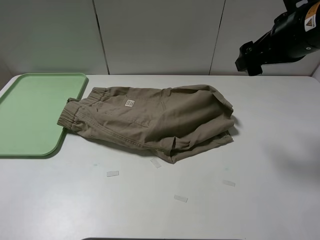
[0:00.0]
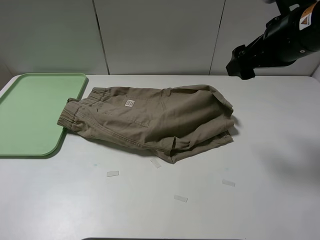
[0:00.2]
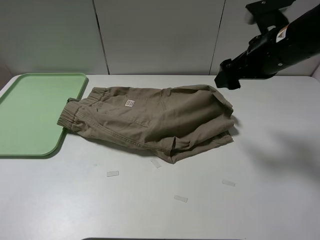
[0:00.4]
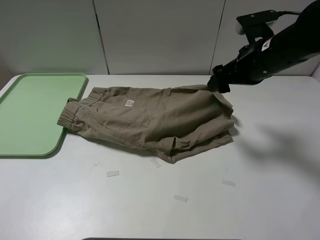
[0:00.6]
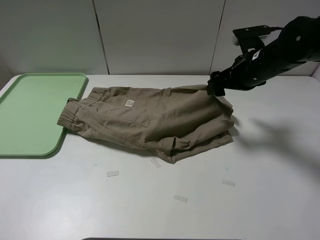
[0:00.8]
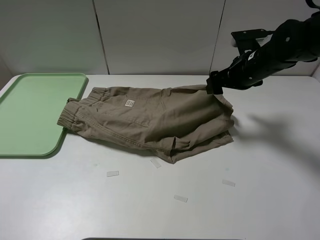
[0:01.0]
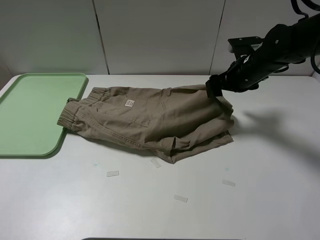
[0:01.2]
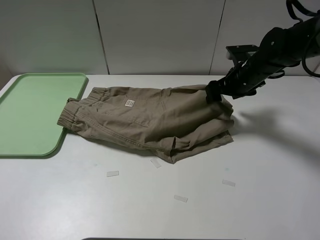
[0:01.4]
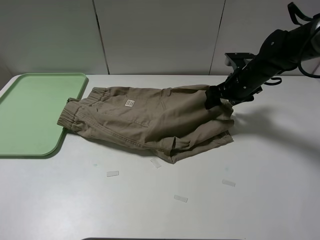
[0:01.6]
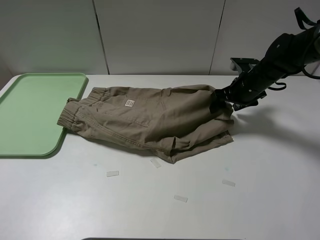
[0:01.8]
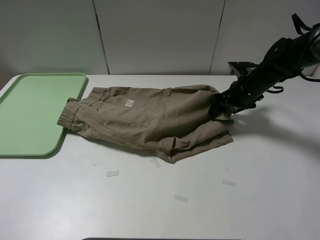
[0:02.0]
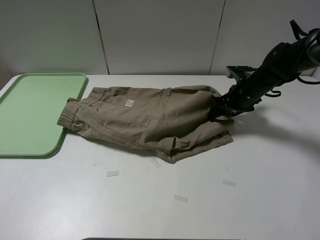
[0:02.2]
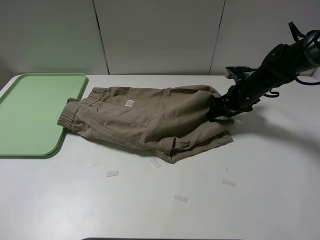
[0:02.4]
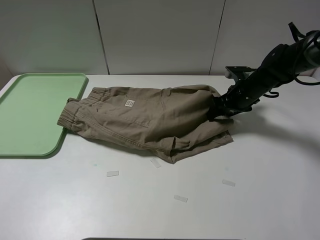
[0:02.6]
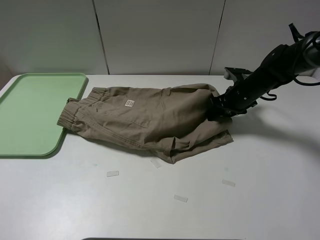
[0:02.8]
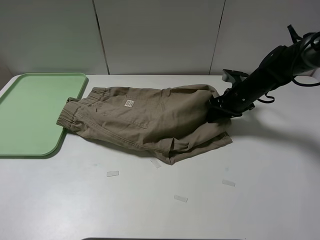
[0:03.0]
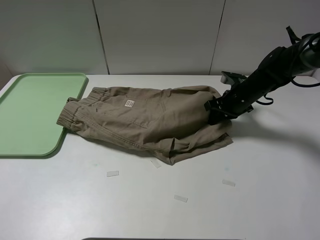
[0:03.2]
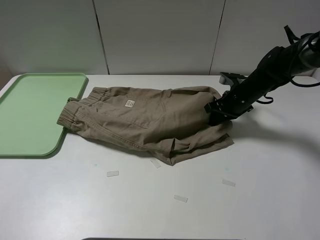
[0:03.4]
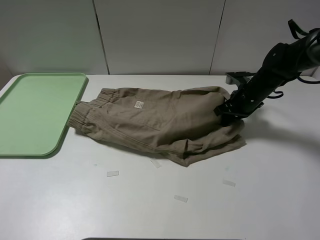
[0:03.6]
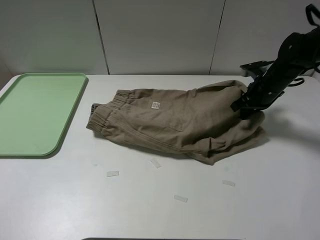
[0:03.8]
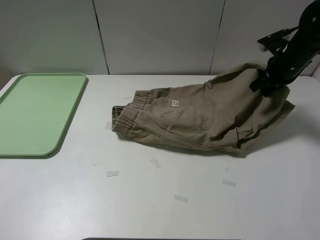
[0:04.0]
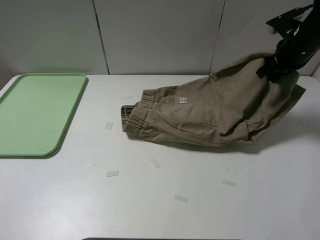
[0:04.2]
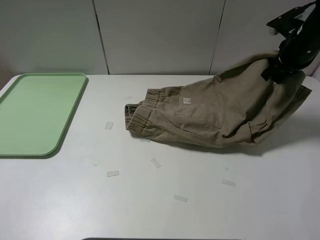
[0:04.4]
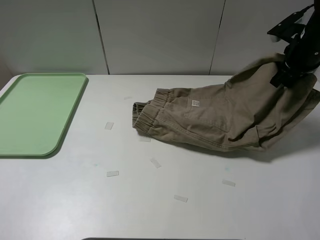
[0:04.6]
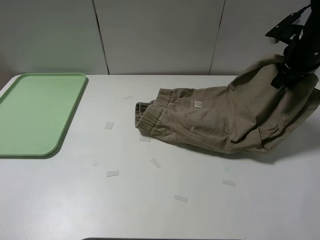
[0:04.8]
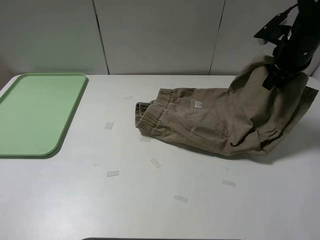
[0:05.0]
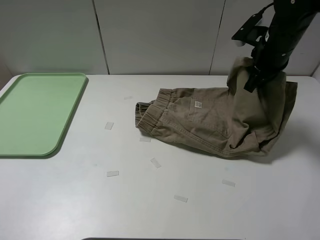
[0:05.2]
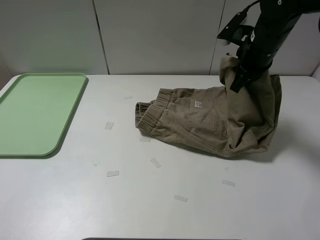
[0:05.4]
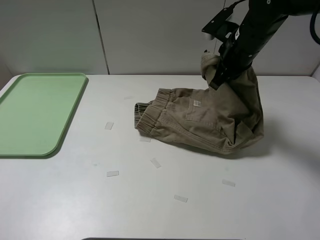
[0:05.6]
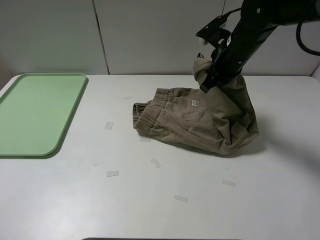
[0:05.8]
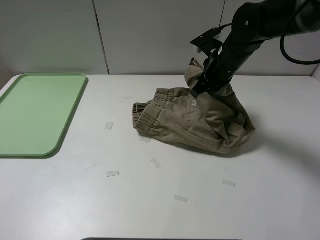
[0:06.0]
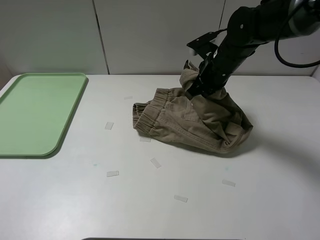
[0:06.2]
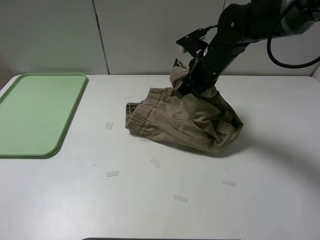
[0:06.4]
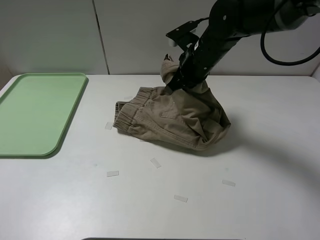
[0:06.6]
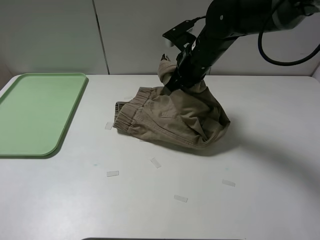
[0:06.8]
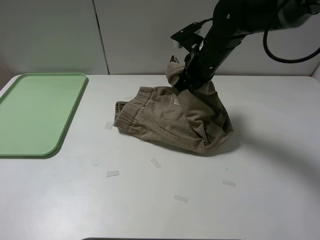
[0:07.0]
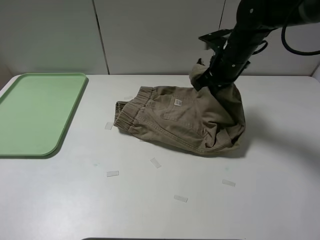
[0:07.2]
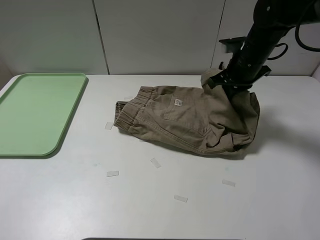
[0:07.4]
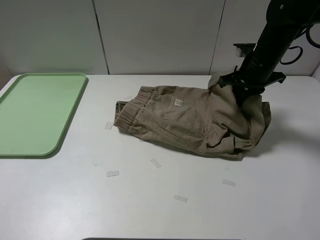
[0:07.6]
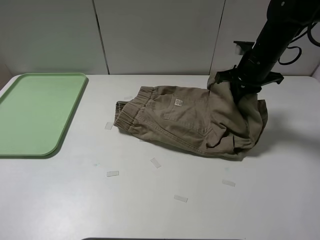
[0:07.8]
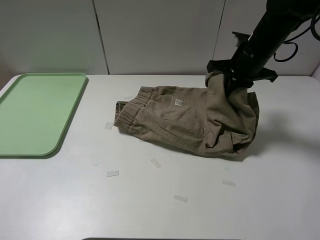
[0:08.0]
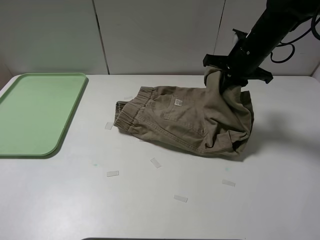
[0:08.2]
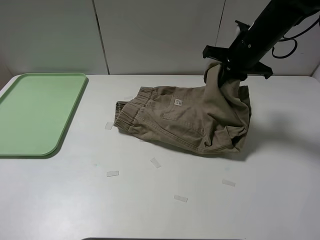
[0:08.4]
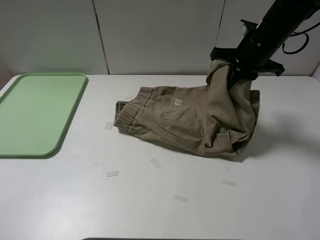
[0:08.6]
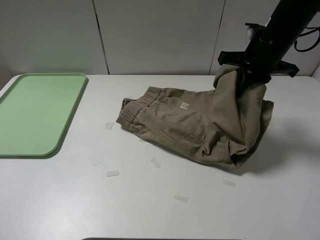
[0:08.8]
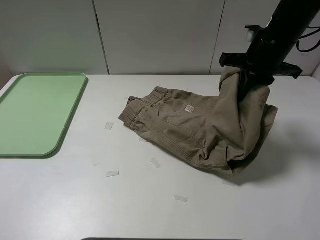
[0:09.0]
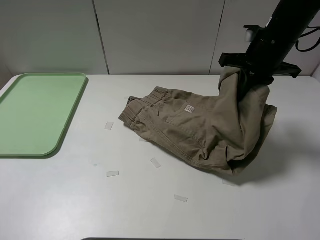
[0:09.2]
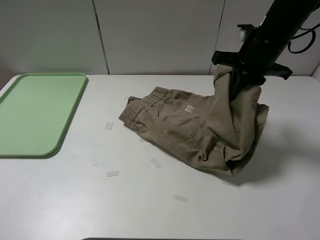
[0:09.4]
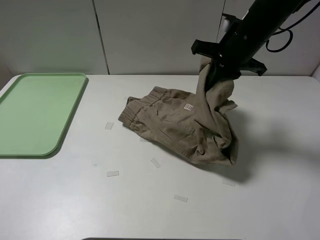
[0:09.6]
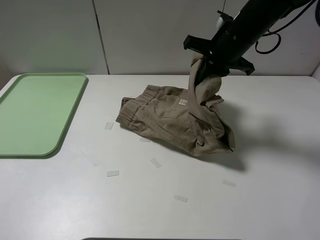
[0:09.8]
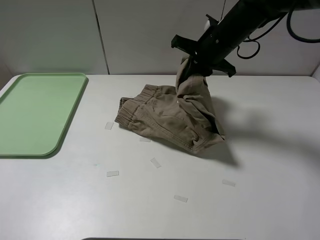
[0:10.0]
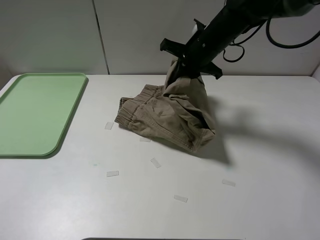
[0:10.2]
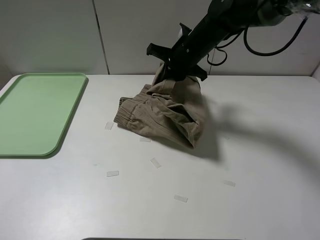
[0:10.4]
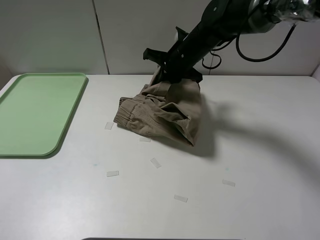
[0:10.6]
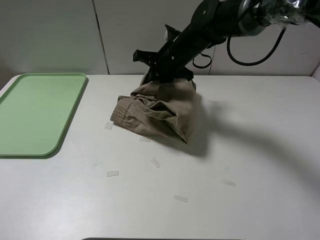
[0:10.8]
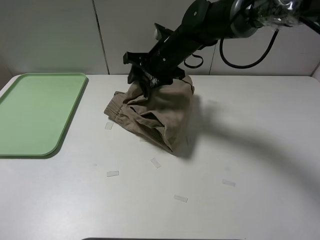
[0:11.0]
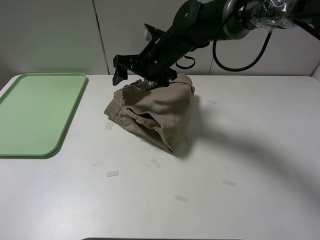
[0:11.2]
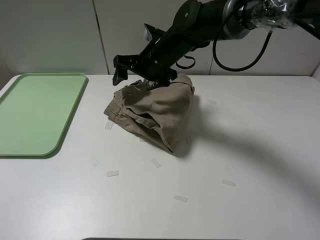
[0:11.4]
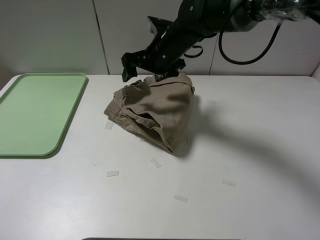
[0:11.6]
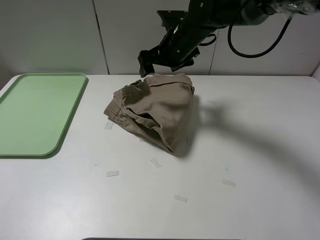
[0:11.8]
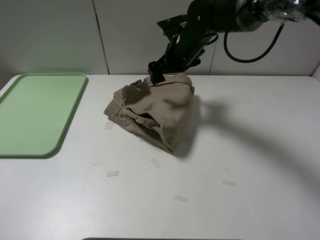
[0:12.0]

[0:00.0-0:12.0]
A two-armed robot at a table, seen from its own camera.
Task of the whole recording: fold the khaki jeans in half with two grippers, then fold them in half again, and use the left claw to place the folded fold khaki jeans on the tray.
Step, 0:00.0 to 0:03.2: Grasp the khaki trousers with the right gripper.
Step, 0:03.4 to 0:11.0: Fold the khaki trousers from right to left with the right gripper.
0:00.0 to 0:01.6: The right gripper is displaced downward and forward by roughly 20 cm.
0:01.6 to 0:03.0: The right gripper closes.
0:03.0 to 0:04.4: The right gripper moves upward and to the right, approximately 15 cm, and closes.
0:04.4 to 0:06.0: The right gripper moves to the left, approximately 15 cm.
0:06.0 to 0:07.6: The right gripper moves to the right, about 10 cm.
0:07.6 to 0:09.0: The right gripper is displaced upward by about 5 cm.
0:09.0 to 0:10.4: The right gripper shifts approximately 15 cm to the left, forward and downward.
0:10.4 to 0:12.0: The right gripper opens.

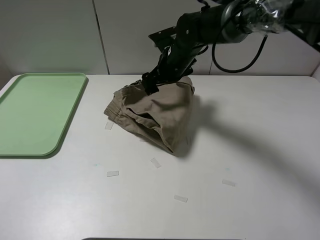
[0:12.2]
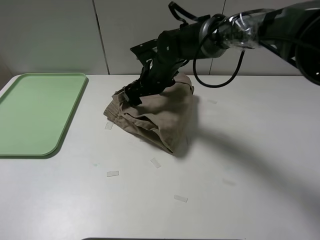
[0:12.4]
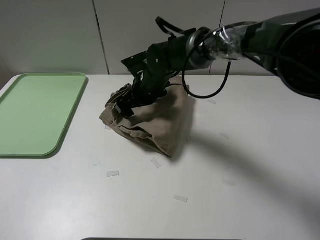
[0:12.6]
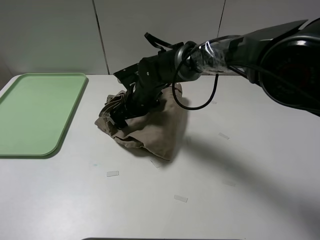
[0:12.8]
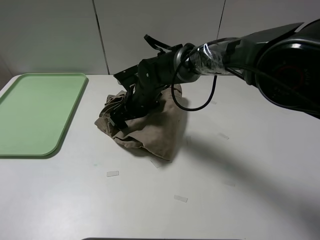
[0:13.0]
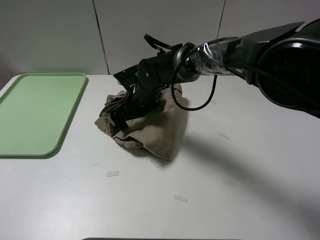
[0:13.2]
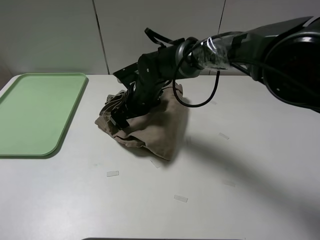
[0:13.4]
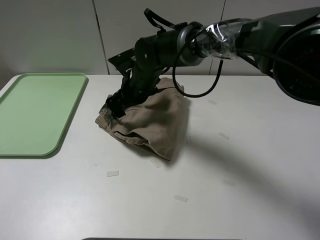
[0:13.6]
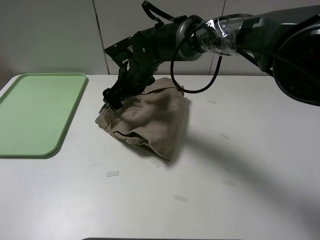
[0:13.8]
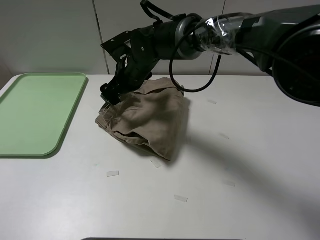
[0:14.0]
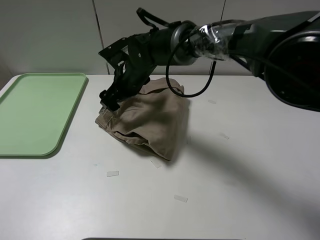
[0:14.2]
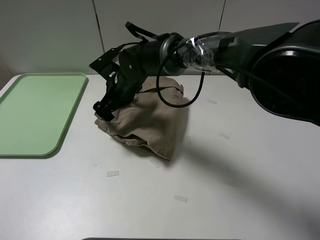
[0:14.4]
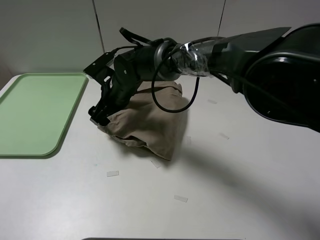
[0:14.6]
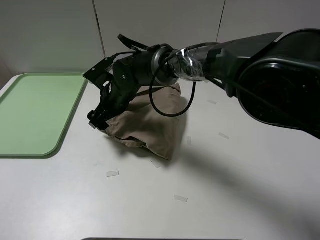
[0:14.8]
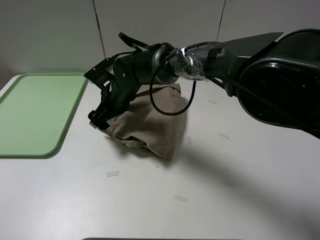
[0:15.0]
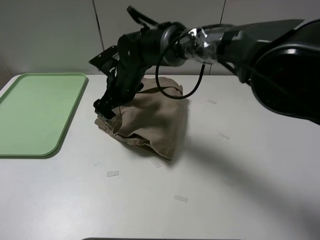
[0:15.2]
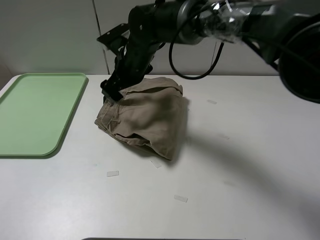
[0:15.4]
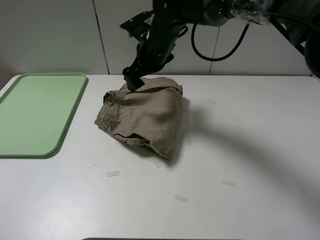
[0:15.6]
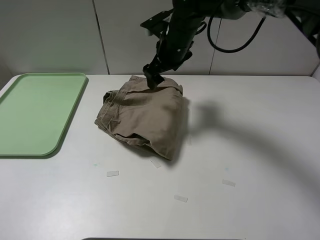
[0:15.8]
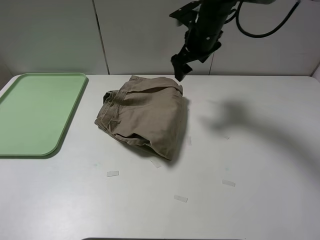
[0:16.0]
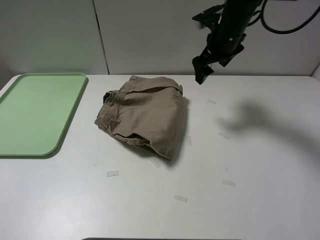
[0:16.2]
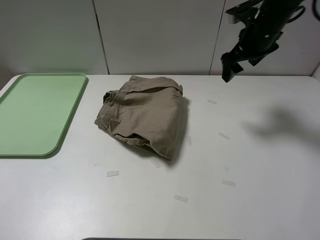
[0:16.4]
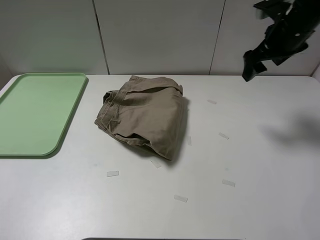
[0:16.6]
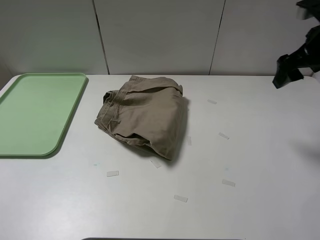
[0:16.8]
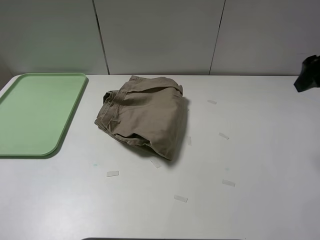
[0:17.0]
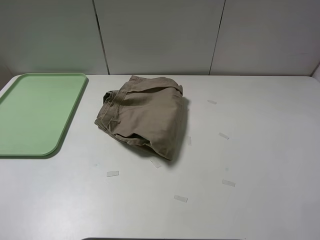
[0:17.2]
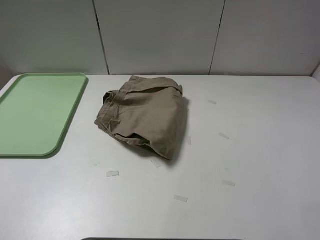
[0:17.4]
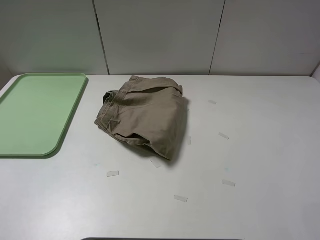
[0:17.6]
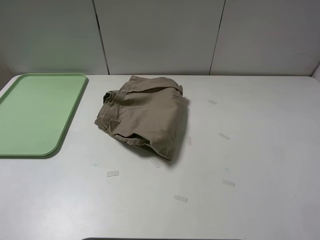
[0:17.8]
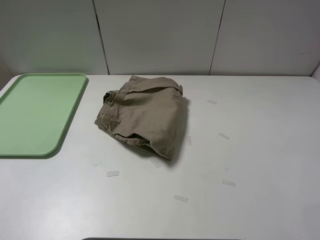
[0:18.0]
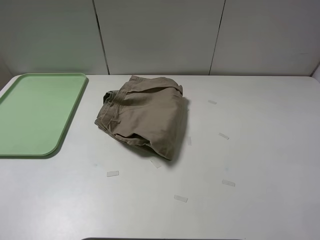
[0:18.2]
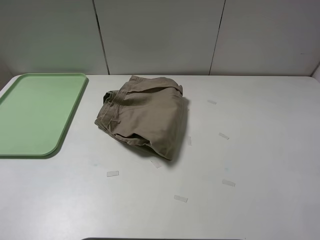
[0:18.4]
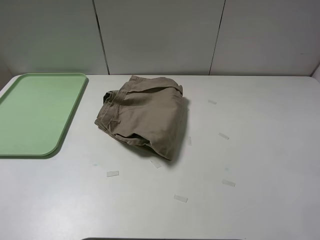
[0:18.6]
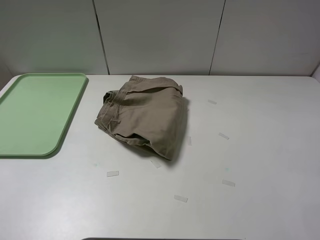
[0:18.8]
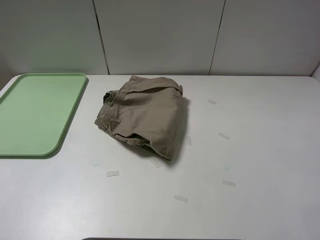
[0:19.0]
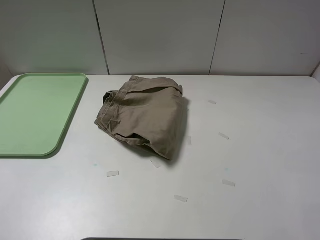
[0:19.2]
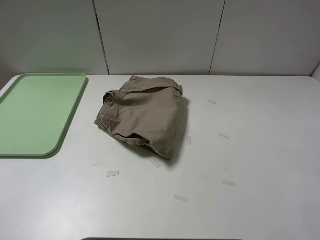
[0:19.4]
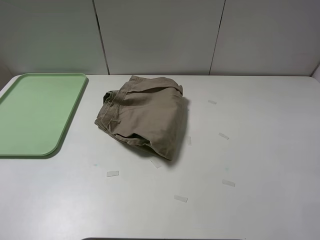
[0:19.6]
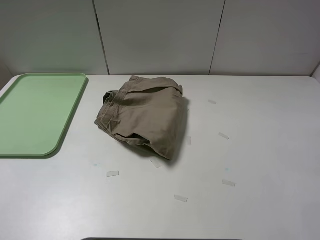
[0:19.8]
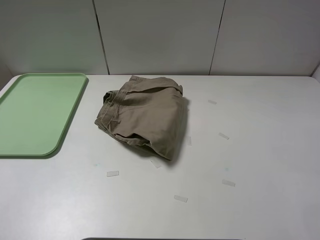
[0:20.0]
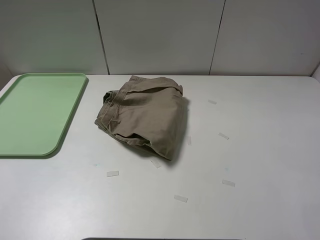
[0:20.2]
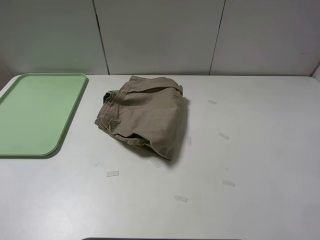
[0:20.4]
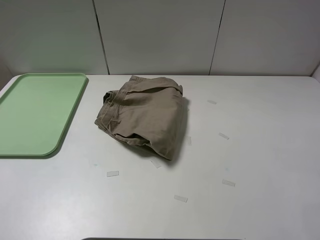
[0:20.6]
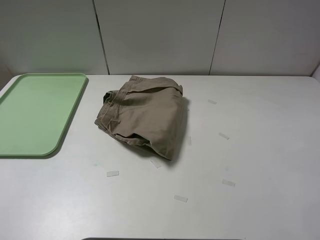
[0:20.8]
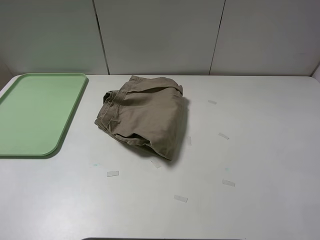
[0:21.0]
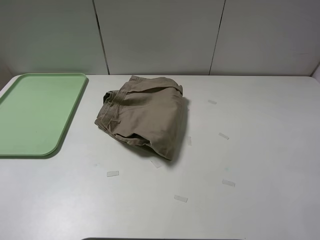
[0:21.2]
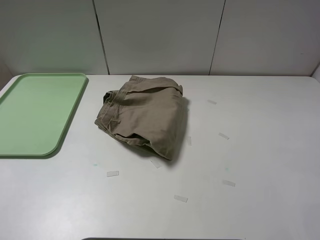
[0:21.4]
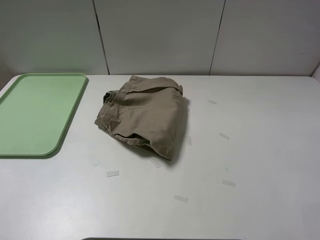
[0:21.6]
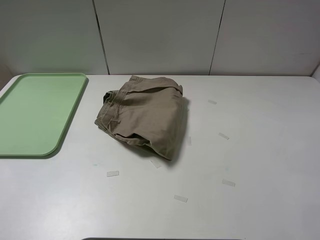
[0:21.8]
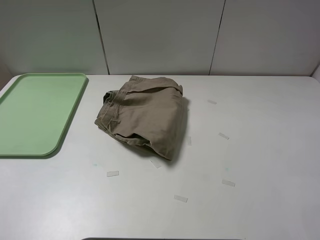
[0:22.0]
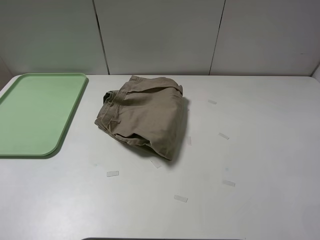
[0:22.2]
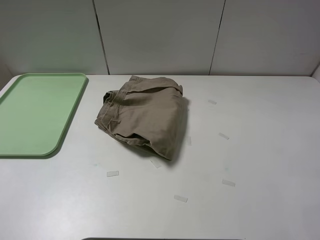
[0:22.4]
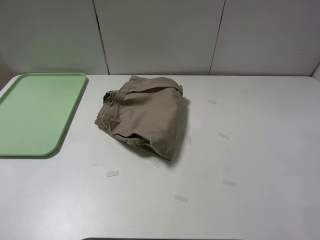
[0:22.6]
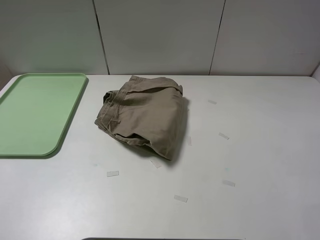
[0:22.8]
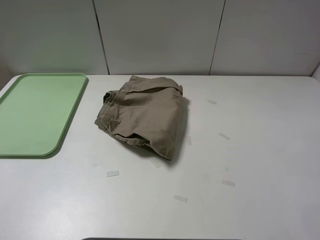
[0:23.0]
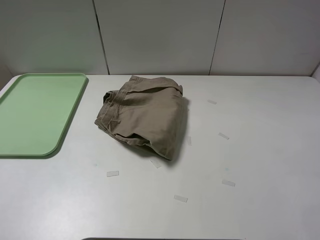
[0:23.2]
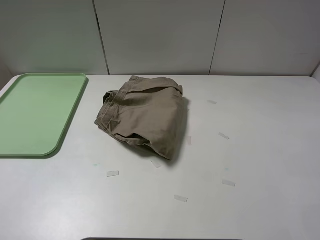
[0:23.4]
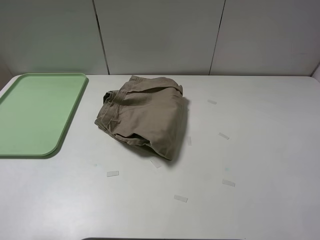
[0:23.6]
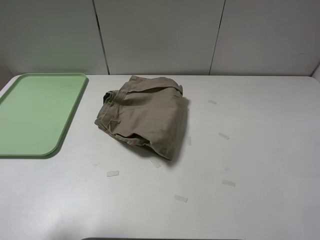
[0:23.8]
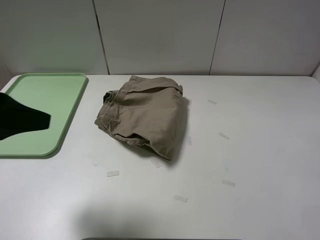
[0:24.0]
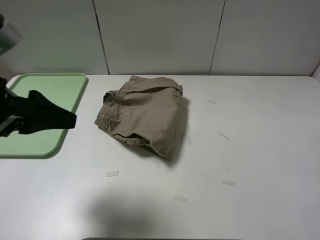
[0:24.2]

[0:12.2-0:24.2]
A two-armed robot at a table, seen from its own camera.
Task of the whole recording: fold the khaki jeans in half with two grippers, then fold them in half again, and use the left claw to place the folded fold khaki jeans on the tray.
0:12.2 to 0:13.8: The right gripper goes about 10 cm to the left.
0:15.2 to 0:16.6: The right gripper shifts some 35 cm to the right.
0:16.6 to 0:18.2: The right gripper moves backward, approximately 35 cm.
0:19.8 to 0:21.2: The two grippers keep their place.
0:22.6 to 0:24.2: The left gripper goes about 20 cm forward and to the right.
